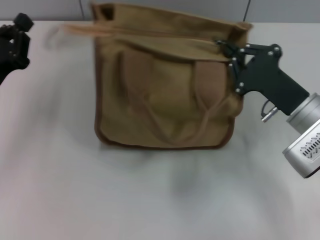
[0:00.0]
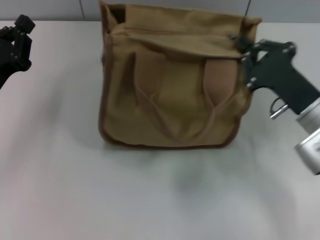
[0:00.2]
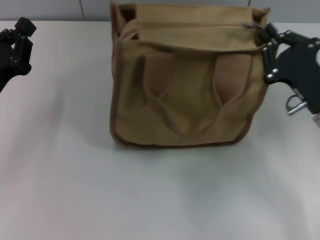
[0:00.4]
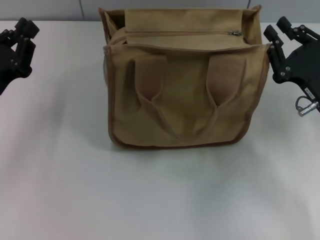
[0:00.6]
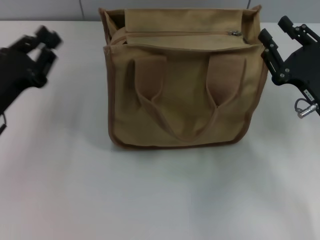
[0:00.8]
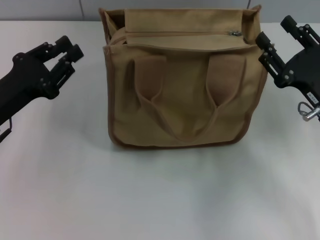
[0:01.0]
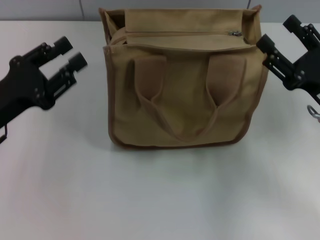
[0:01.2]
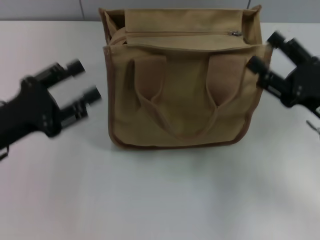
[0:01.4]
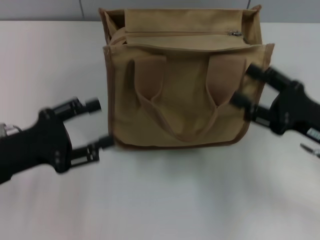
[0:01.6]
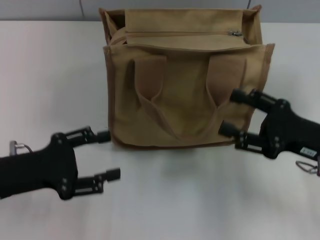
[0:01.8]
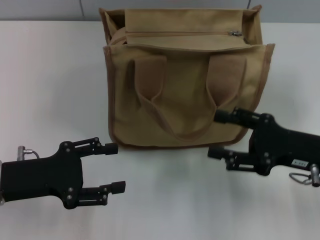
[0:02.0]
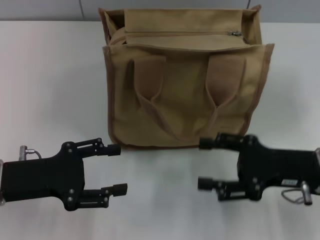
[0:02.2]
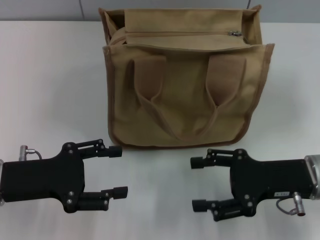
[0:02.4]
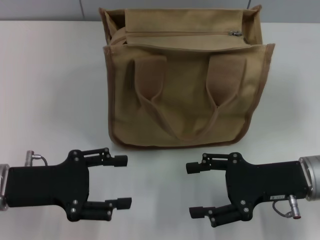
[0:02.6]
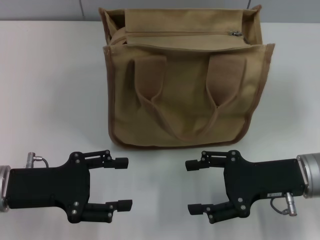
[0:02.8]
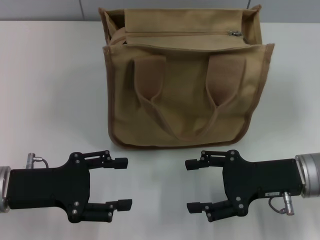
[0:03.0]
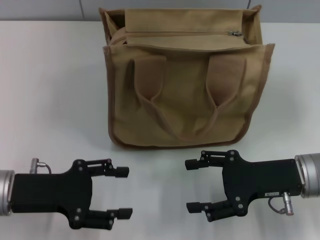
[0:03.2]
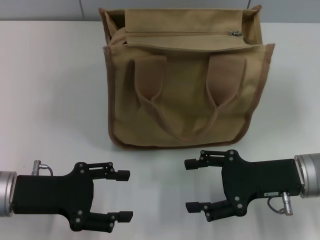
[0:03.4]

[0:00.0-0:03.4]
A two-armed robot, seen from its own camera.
Step, 0:00.0 to 0:01.0: Pull up the zipper with your right hand.
0:00.0 to 0:01.6: The left gripper shifts some 5 cm backward, and opens up. Meanwhile the right gripper changes place by some 5 cm, and opens.
